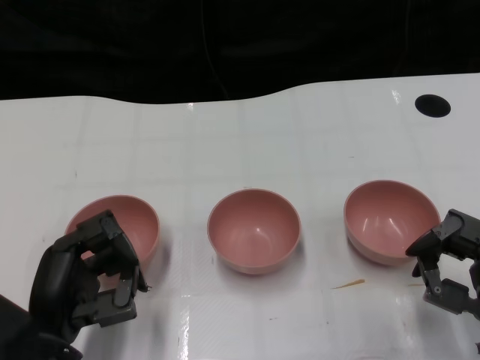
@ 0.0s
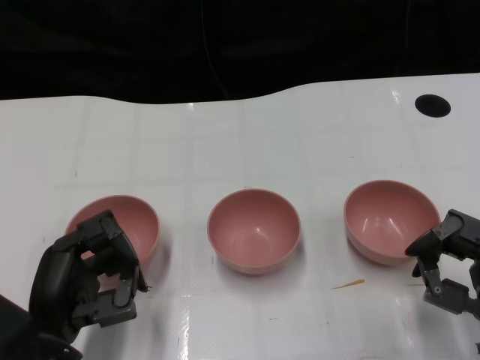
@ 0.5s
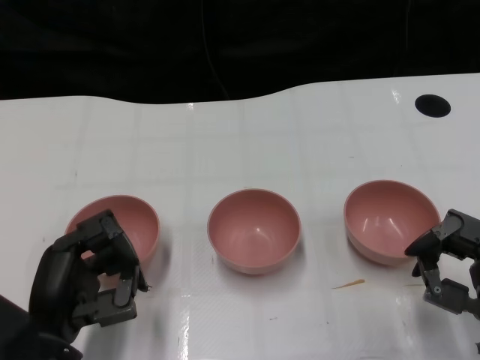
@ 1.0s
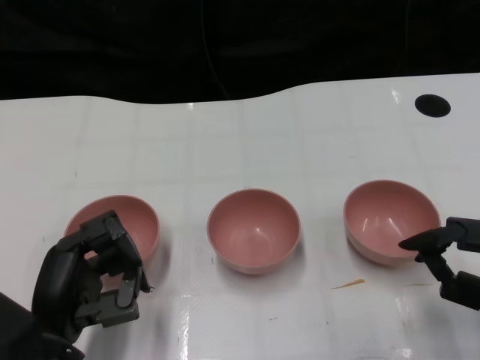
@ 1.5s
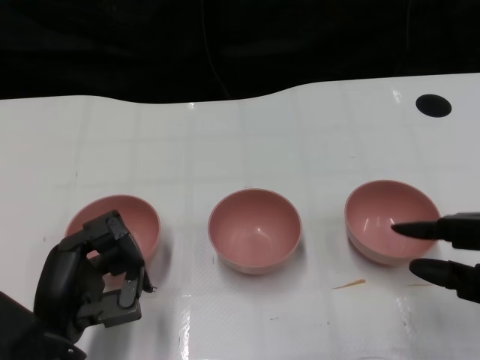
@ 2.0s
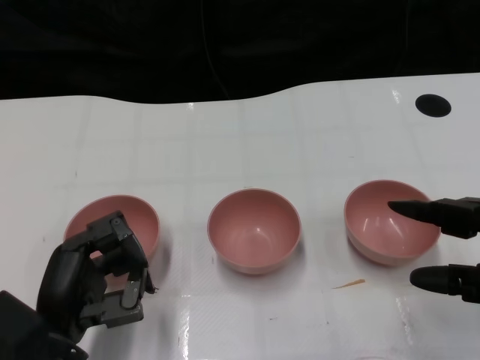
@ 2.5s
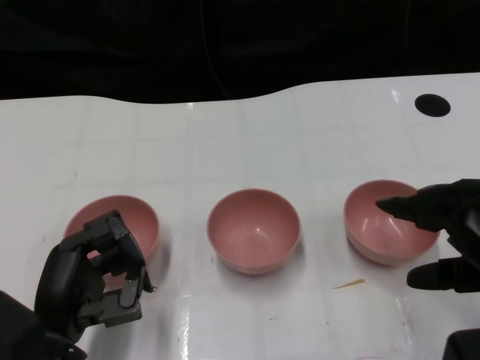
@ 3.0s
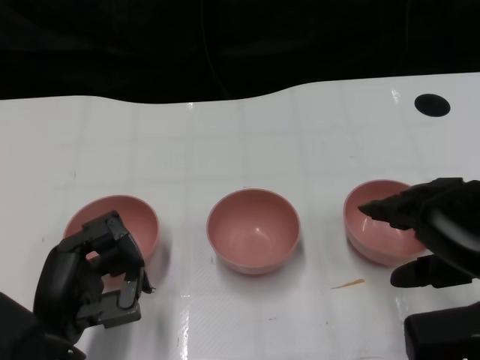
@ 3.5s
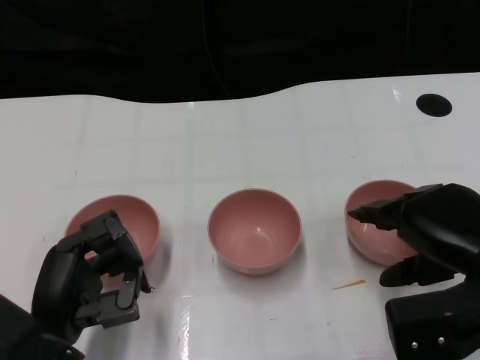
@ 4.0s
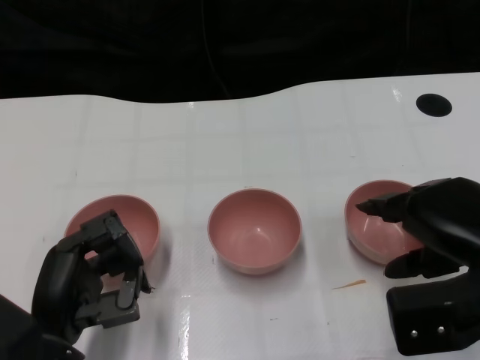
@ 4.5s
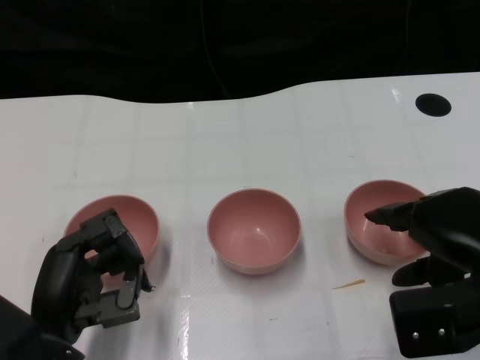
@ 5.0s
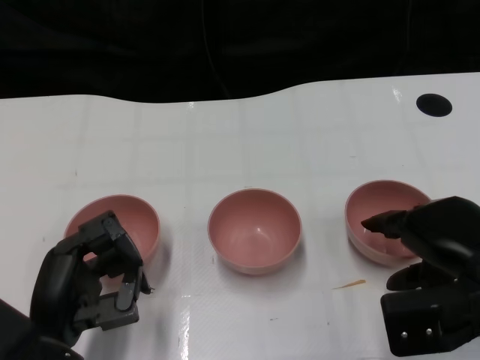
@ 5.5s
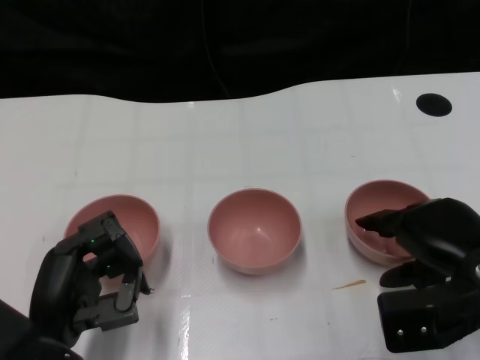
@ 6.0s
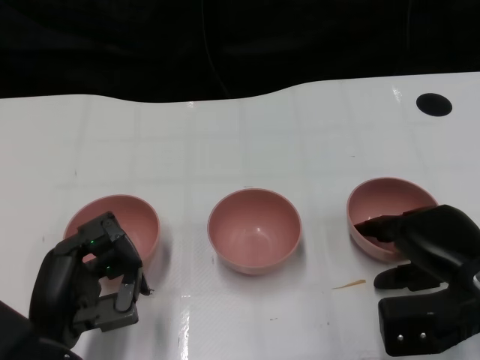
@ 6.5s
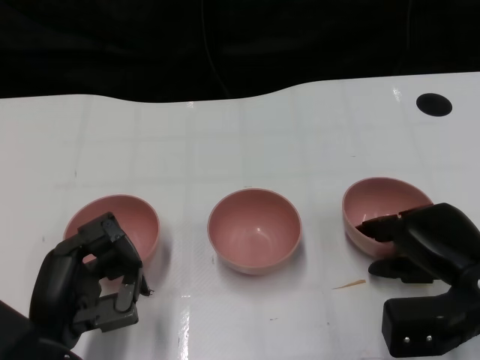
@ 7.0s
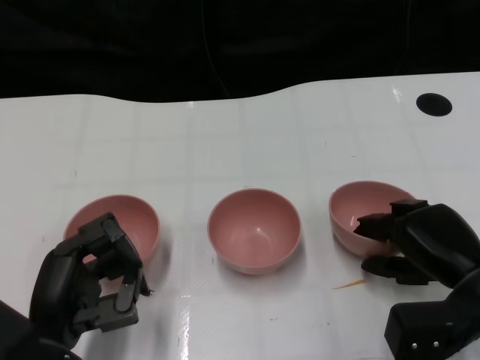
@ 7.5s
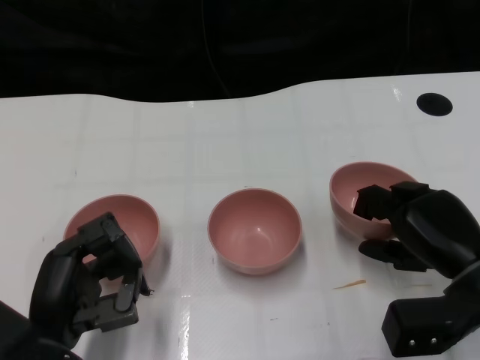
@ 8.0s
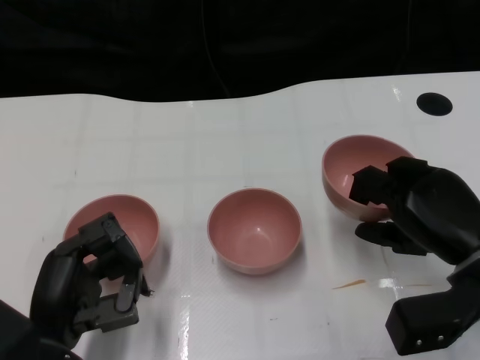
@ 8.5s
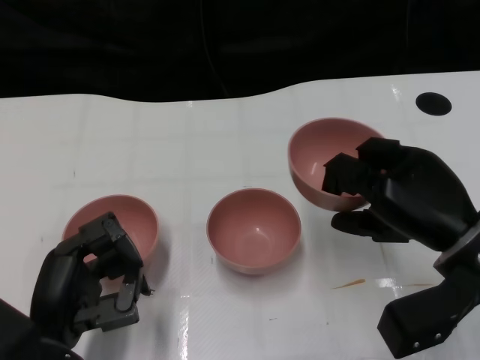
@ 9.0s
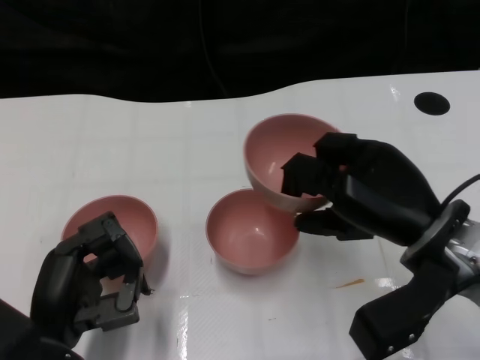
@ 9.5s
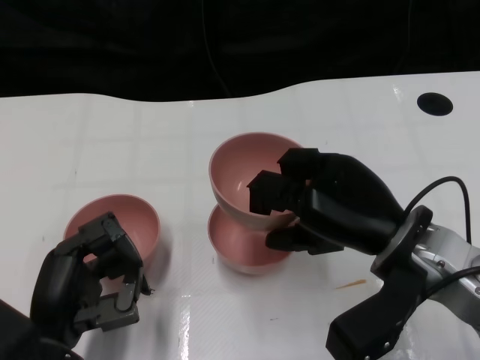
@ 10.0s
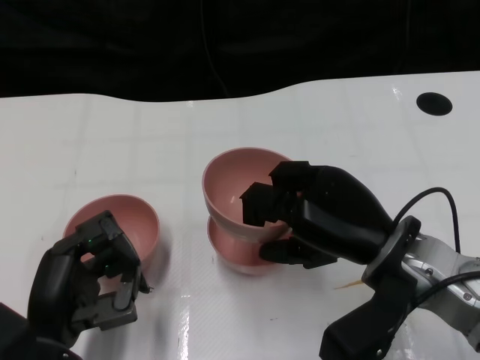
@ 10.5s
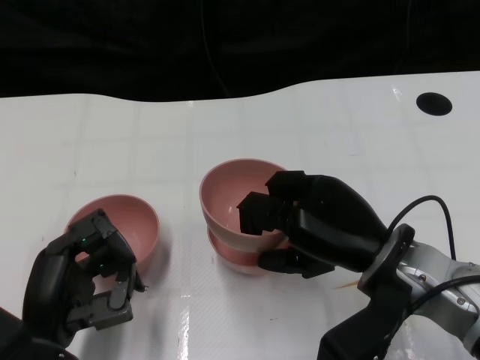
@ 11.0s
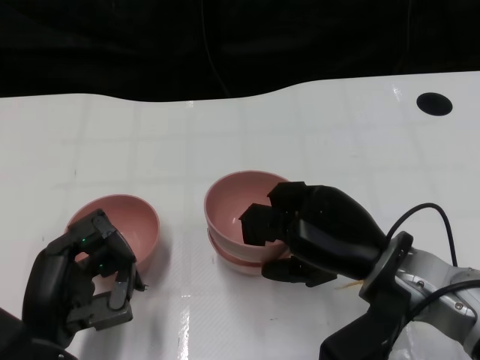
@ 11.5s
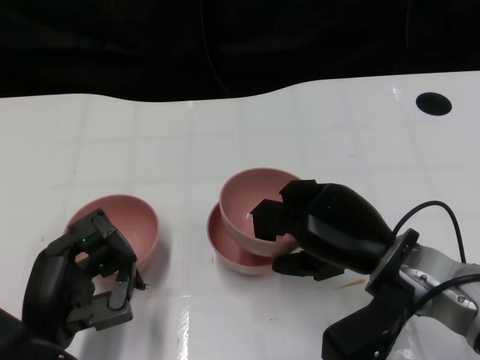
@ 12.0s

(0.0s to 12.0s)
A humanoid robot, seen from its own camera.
Task of the whole recording: Pick up the bowl on one side of the table and place it on top of the middle bowl, then pick up the bowl on the other side of the table and place it on top of the middle bowls.
Step, 1.5s - 7.5s: Grasp the bowl on the right with the right gripper.
2.0s - 4.0s: The right hand moves some 10 cm.
4.0s - 6.0s: The right hand changes place by about 5 cm.
8.0s - 10.0s: The right hand is displaced to the left and upward by approximately 10 cm.
10.0s - 12.0s: The hands stay close to where they were, moving slightly.

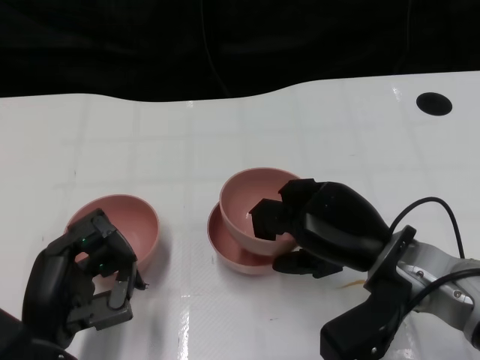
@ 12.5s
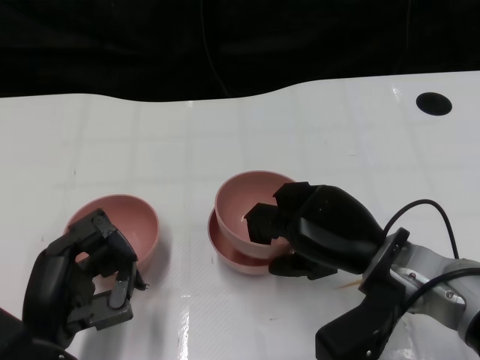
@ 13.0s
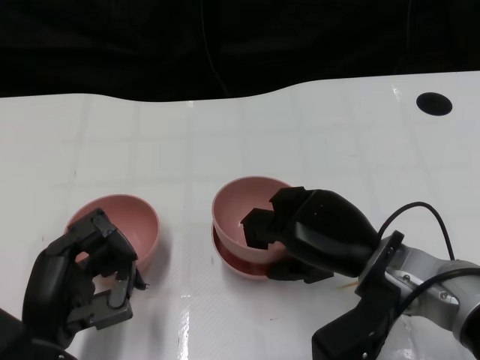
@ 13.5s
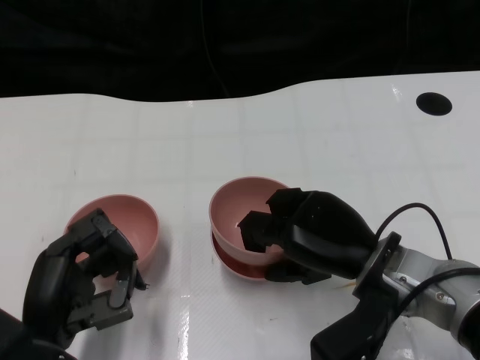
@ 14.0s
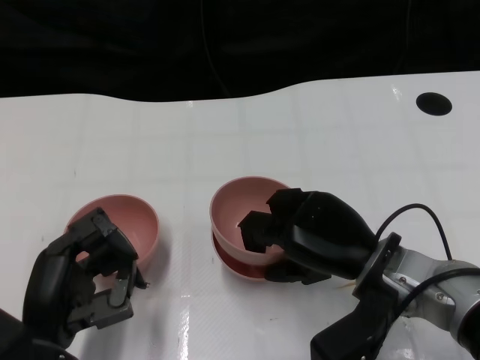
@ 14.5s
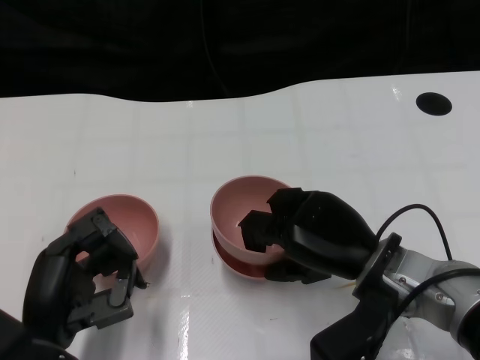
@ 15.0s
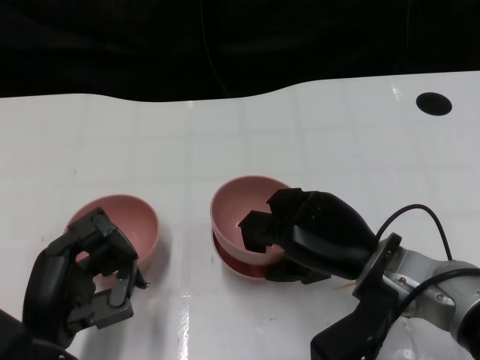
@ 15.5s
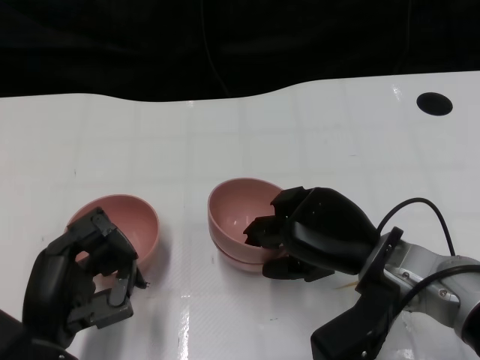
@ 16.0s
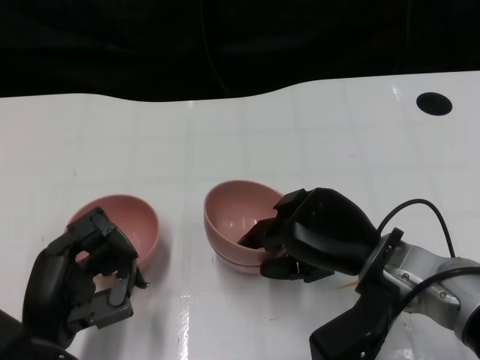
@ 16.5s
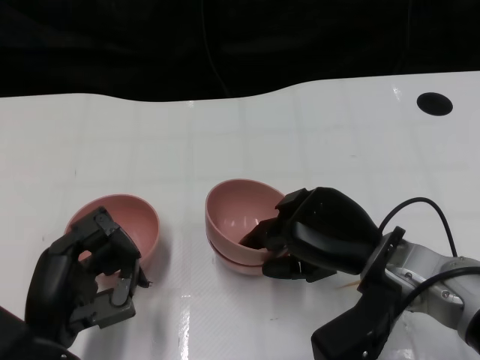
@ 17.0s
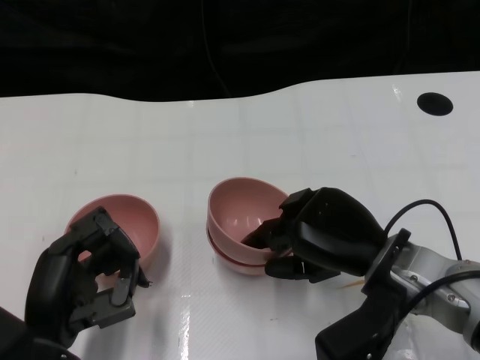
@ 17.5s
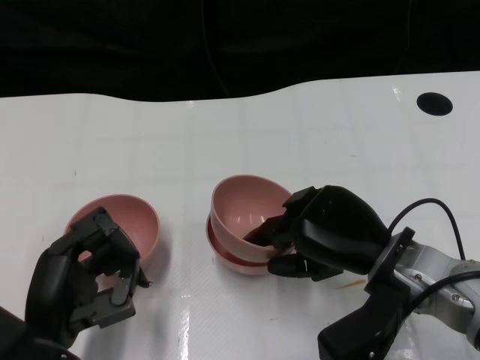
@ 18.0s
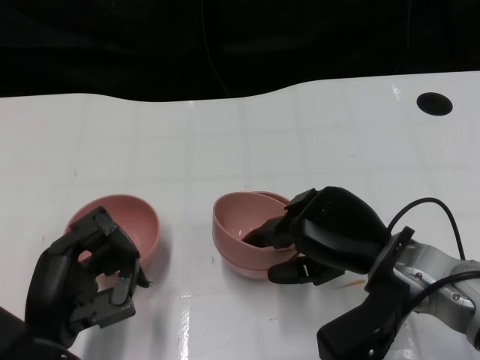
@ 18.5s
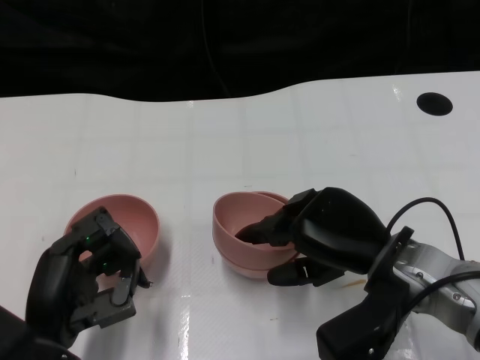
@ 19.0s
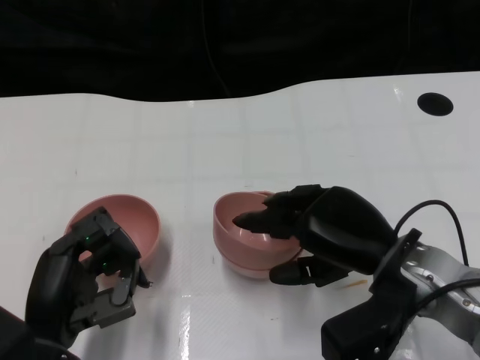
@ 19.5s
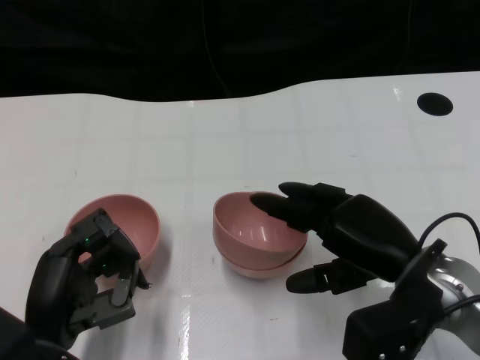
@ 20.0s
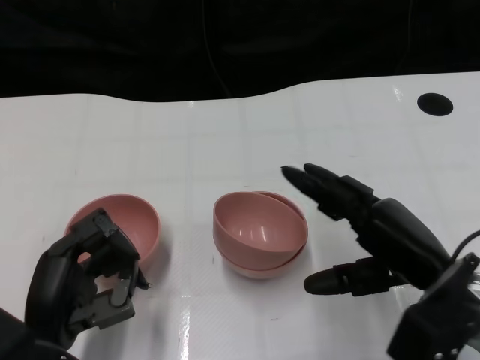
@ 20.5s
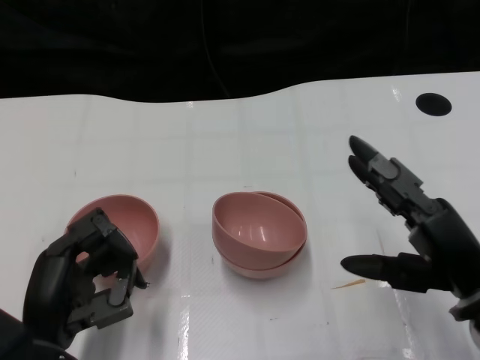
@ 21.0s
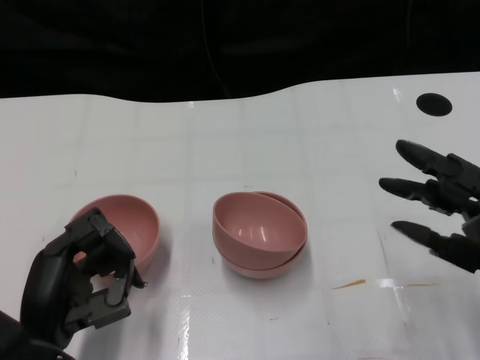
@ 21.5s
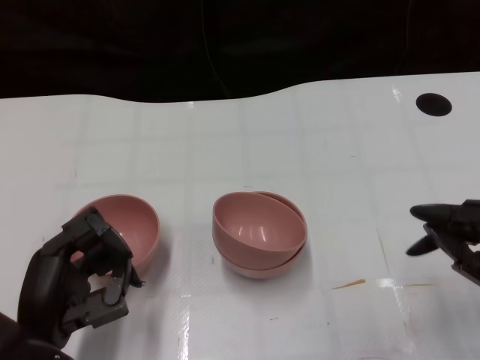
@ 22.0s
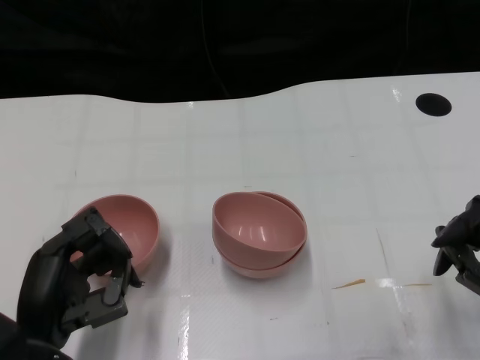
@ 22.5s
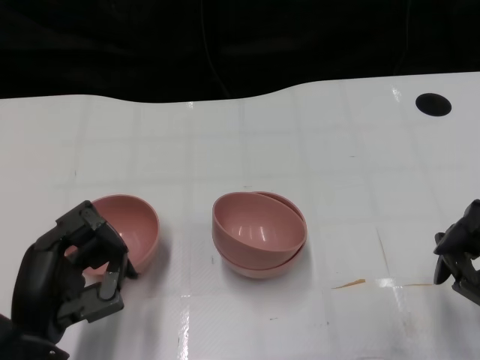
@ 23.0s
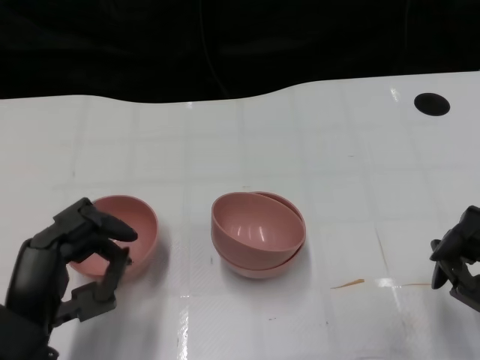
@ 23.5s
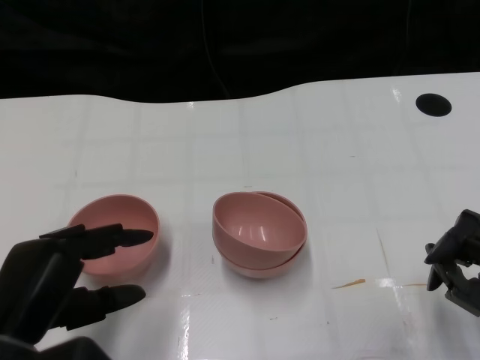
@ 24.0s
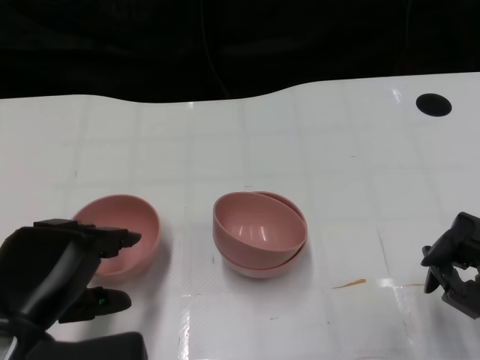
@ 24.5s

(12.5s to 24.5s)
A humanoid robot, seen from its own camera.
Task of the whole recording: Pick up the bowl on one side of the table and place it on top of the middle bowl, then pick up the bowl on the other side of the table and place it on top of the middle bowls.
Step, 12.5s - 20.0s: Place the bowl on the right onto the bowl in the middle with right gripper.
12.5s - 14.5s: The hands stay close to where they were, moving slightly.
14.5s - 16.5s: The two hands keep their place.
16.5s - 18.5s: Neither hand changes place.
18.5s - 20.5s: The right hand moves about 5 cm.
20.5s - 22.5s: The right hand heads to the right, covering about 10 cm.
22.5s - 24.5s: The left hand moves upward, approximately 5 cm.

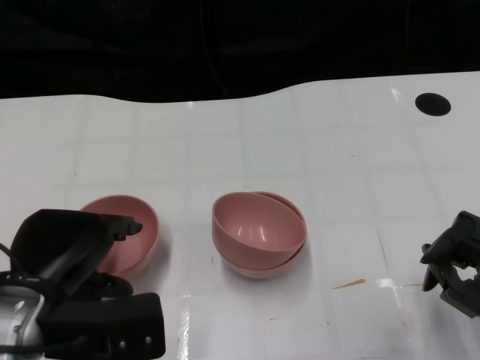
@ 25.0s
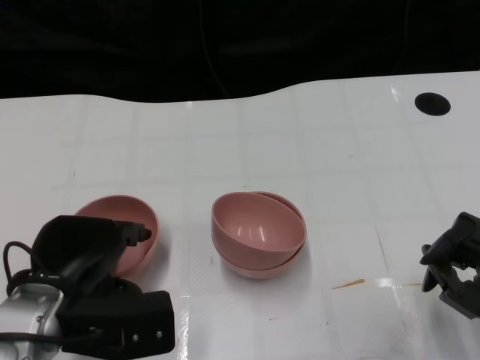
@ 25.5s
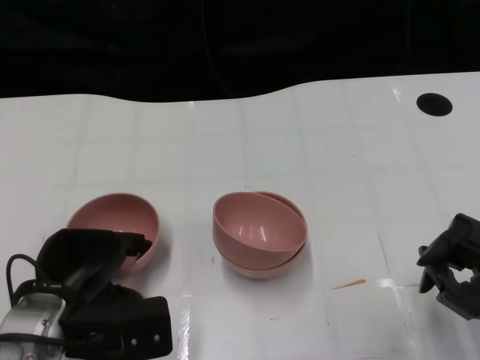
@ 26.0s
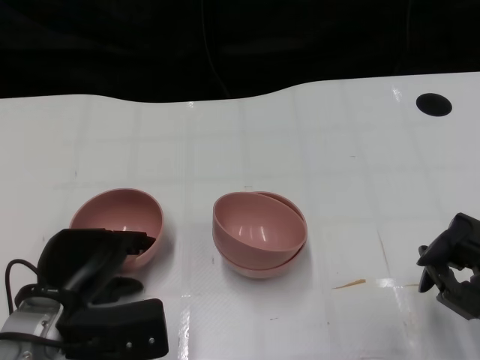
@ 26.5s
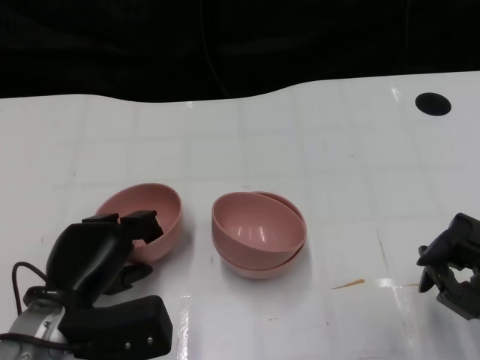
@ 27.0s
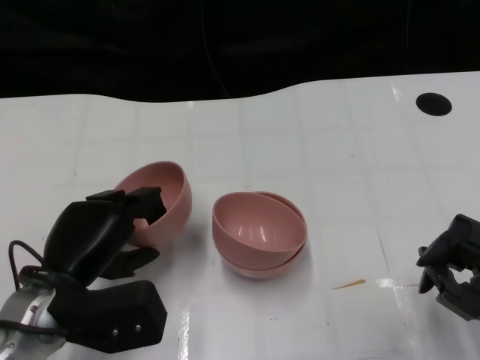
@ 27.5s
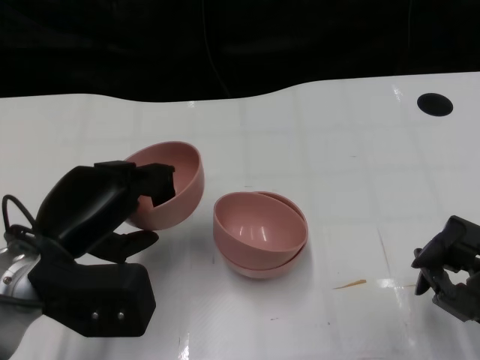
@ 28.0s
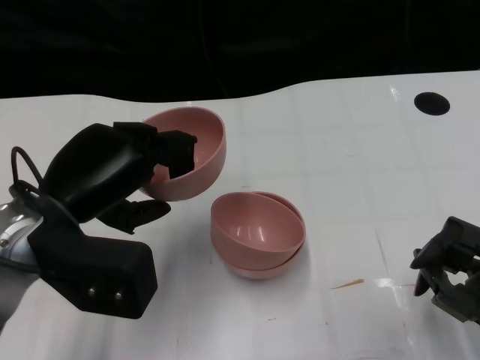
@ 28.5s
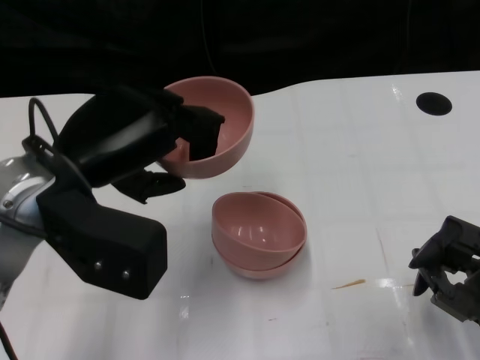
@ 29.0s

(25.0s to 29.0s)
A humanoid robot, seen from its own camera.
Task of the whole recording: Pick up the bowl on one side of the table and place it on top of the middle bowl, then pick up the bowl on the other side of the table and place it on top of the middle bowls.
Step, 25.0s - 27.0s: Grasp the bowl on the left with the left gripper.
25.0s - 27.0s: The left hand heads downward, covering about 5 cm.
27.0s - 29.0s: The left hand goes some 15 cm upward.
